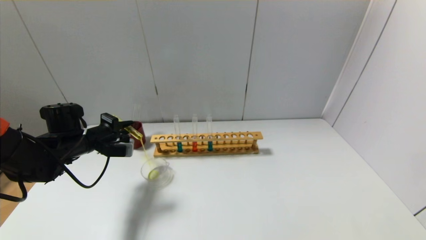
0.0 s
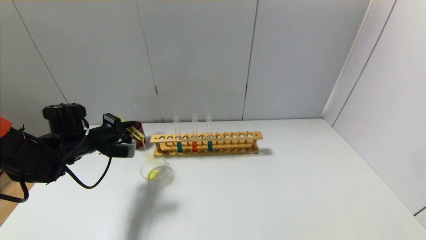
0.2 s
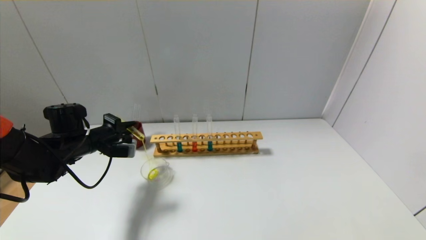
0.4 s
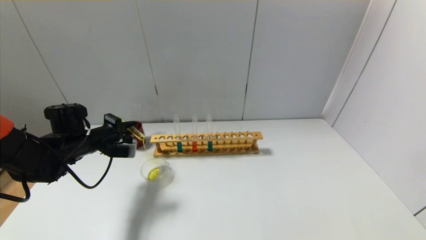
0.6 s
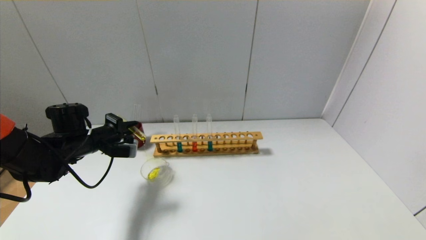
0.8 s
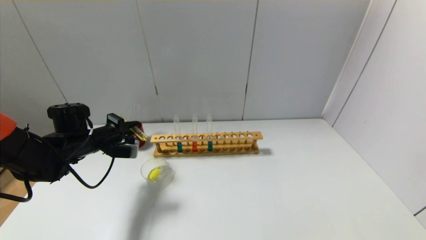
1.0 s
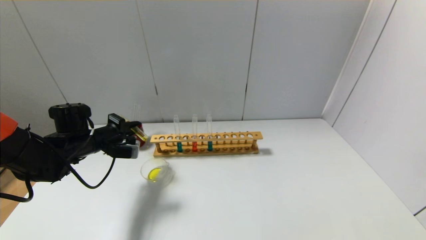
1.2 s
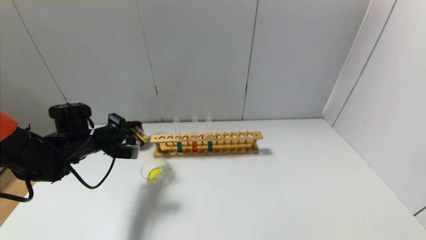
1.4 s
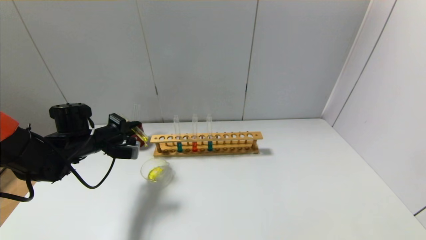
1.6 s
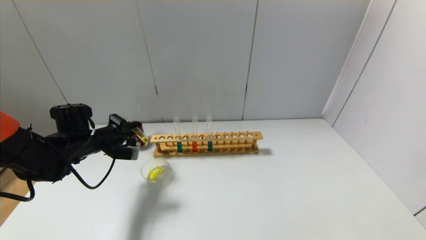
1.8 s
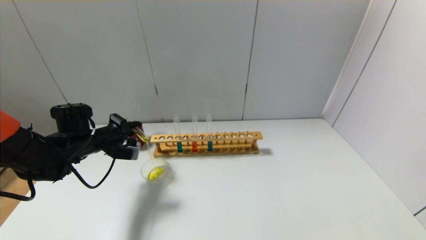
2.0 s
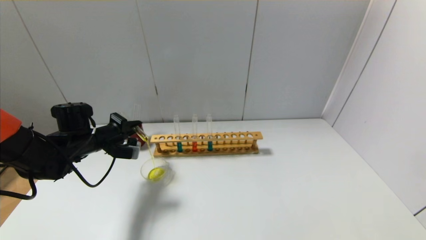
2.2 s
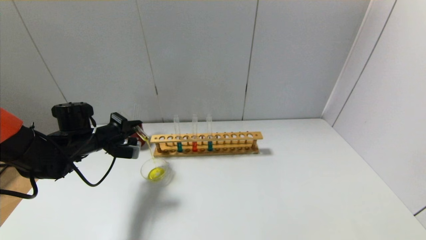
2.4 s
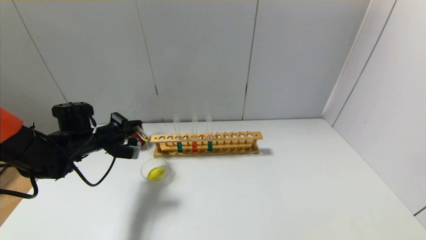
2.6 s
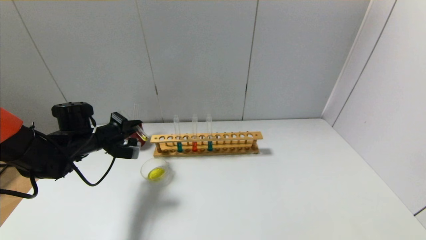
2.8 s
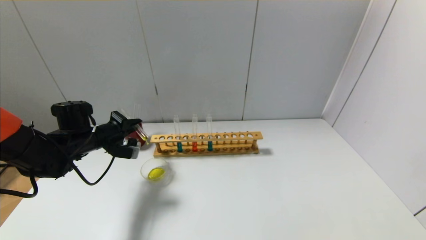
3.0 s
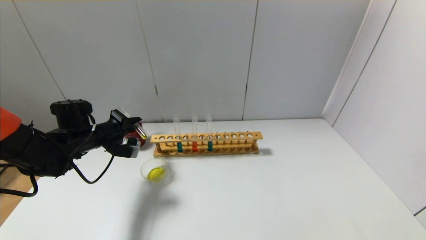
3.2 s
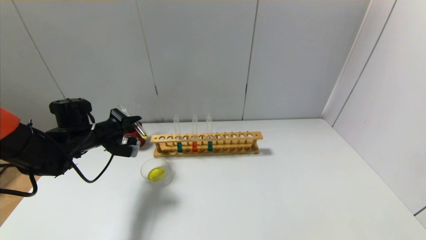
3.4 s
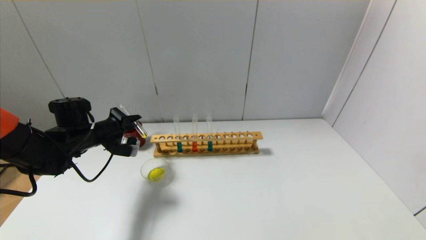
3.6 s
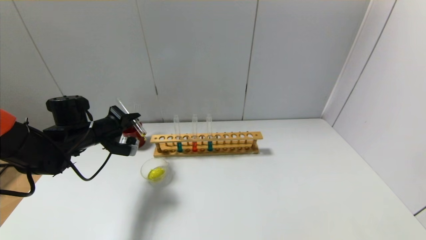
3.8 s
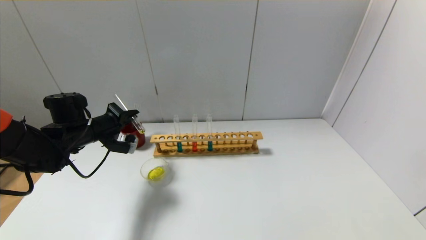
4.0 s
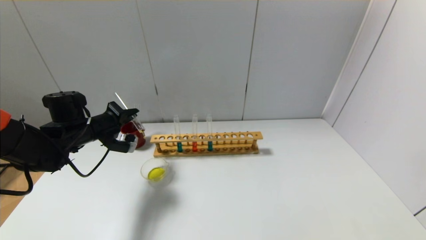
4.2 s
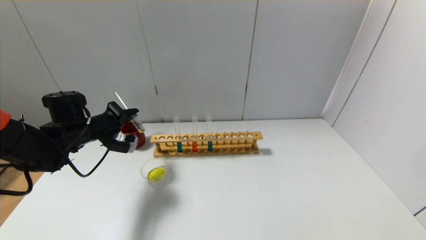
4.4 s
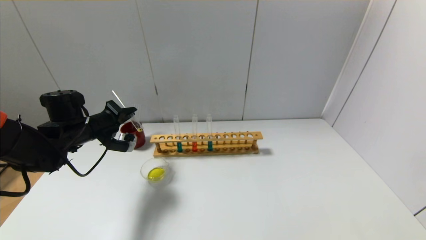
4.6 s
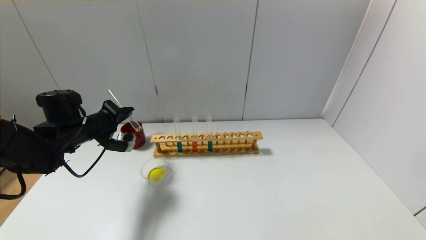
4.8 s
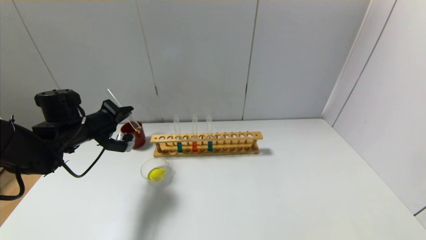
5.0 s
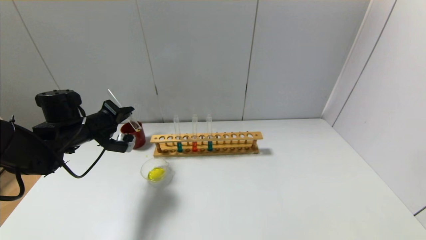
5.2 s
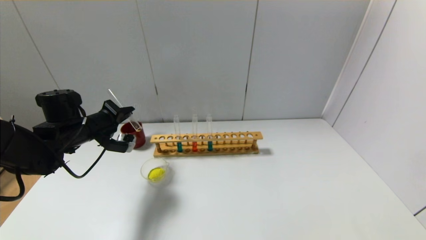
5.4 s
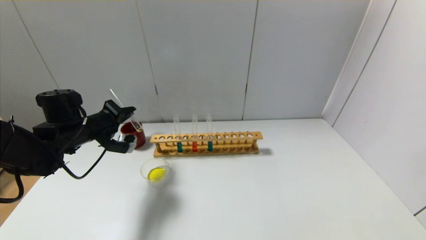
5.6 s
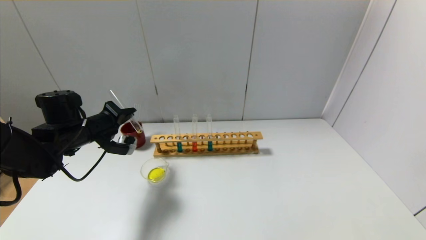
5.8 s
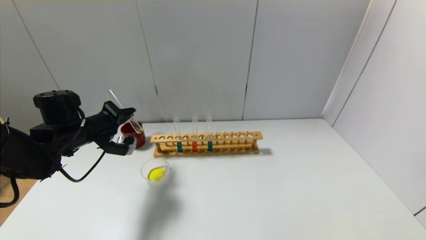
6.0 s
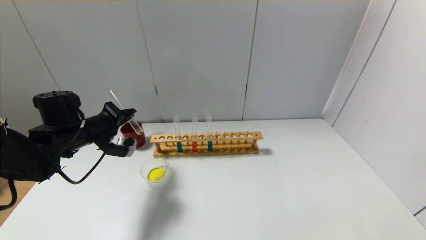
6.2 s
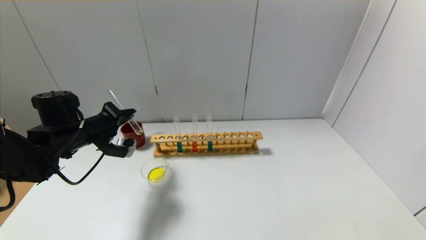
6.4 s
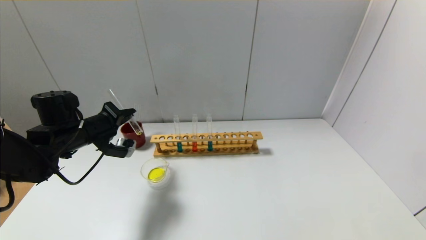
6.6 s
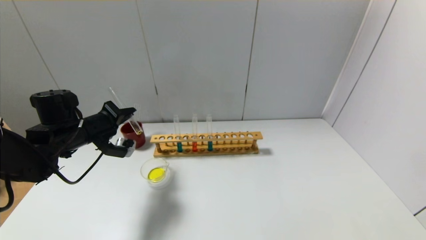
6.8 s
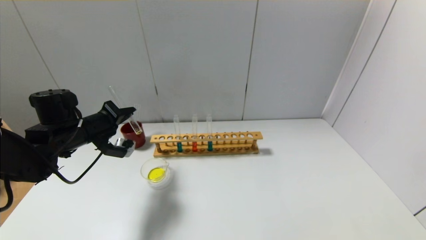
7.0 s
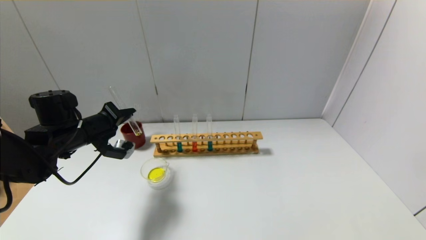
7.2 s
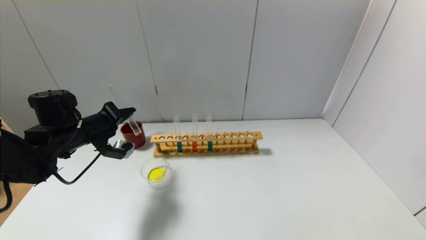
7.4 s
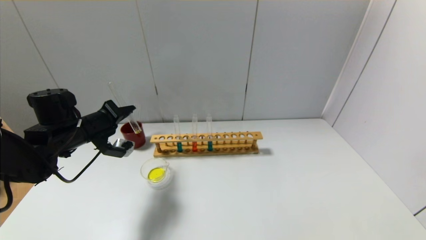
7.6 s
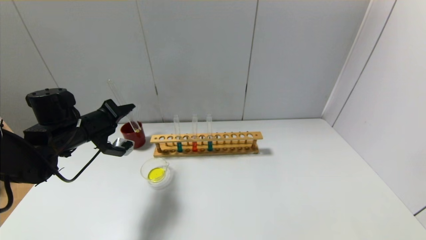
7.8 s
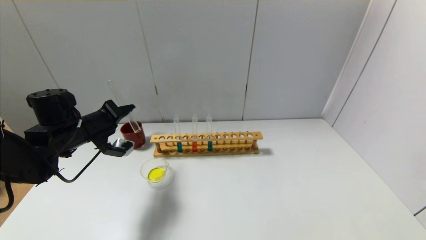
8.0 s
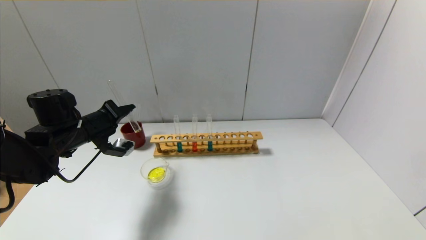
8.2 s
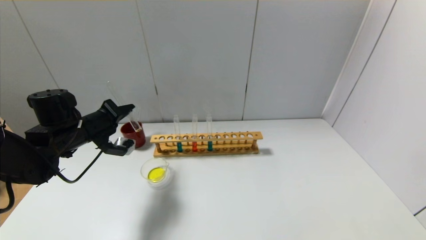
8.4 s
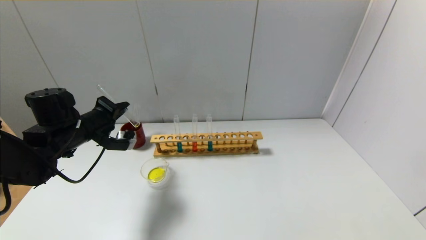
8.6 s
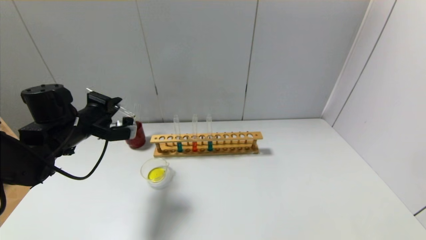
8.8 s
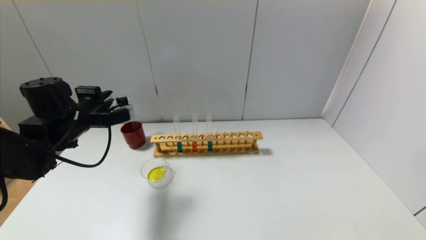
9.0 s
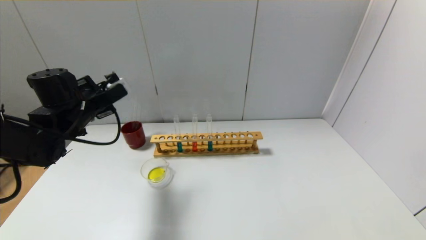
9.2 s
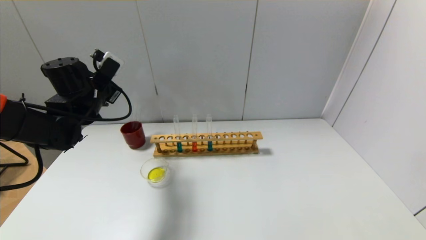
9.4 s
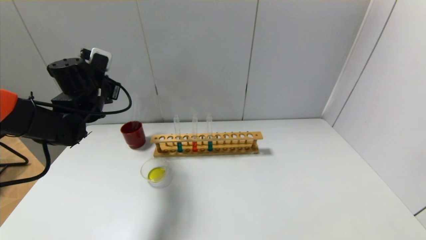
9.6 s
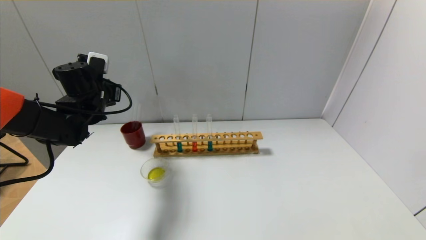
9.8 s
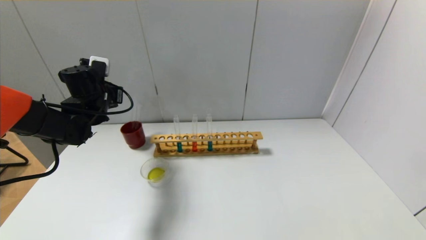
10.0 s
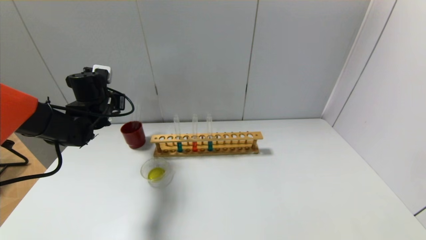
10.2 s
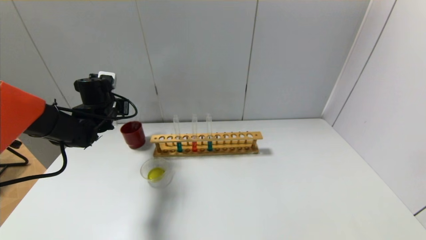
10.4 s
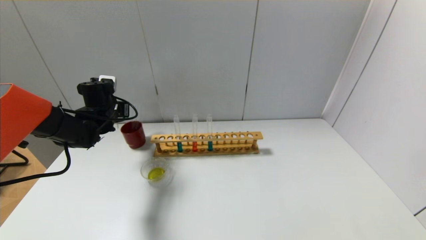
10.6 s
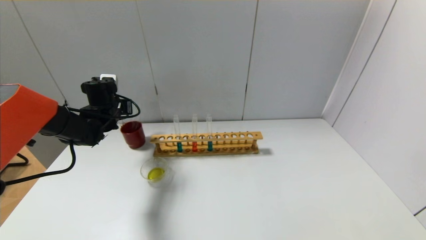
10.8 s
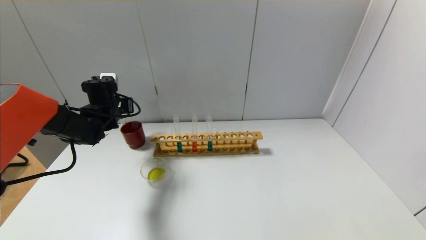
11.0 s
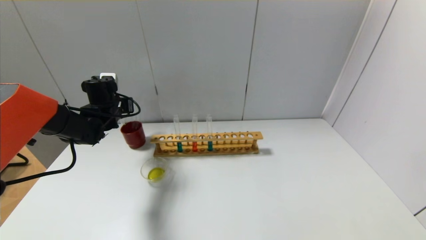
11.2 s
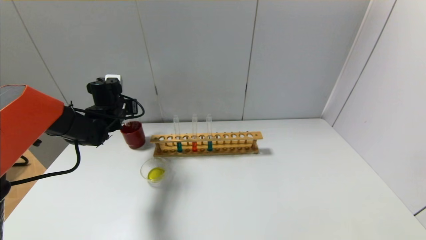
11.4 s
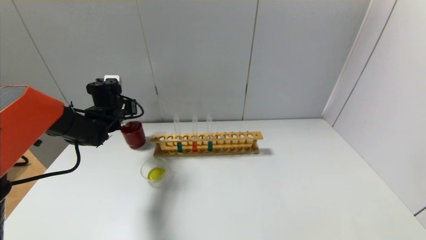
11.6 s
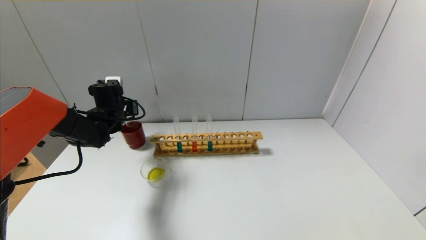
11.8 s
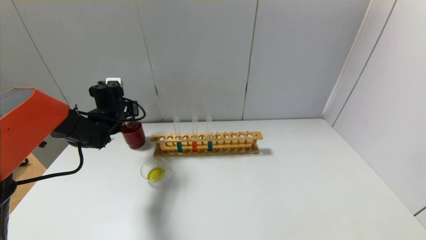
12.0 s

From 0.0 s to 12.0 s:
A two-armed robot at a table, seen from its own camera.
Step, from 0.0 s to 8.0 s: Pour the yellow reagent into the graduated cylinder with the left gripper.
From 0.0 s to 3.0 s: There are only small adjustments of the grippers.
From 3.0 s to 6.0 s: There are only small adjustments of the grippers.
From 6.0 s to 7.6 s: There are only small adjustments of the grippers.
From 9.0 s to 10.4 s: The left gripper is displaced forward by some 10 cm.
From 10.4 s to 12.0 s: The grippers make only small movements.

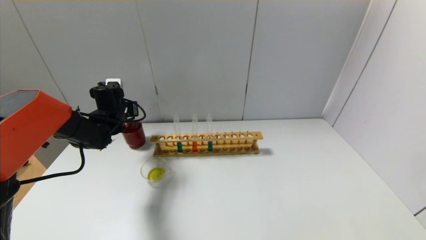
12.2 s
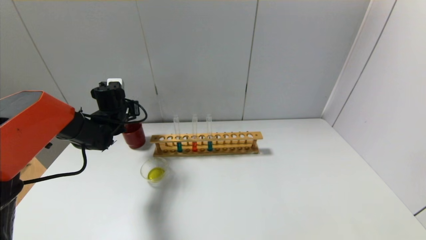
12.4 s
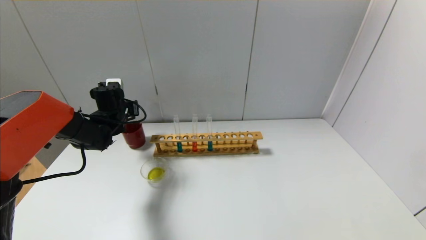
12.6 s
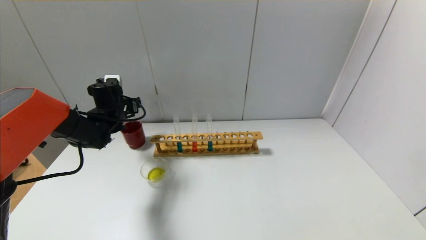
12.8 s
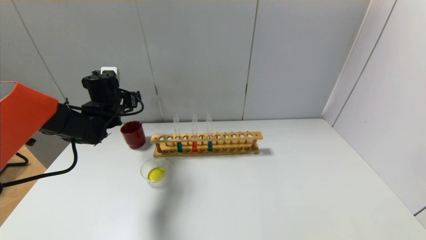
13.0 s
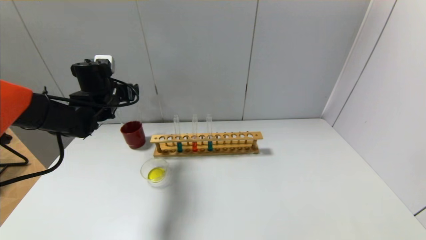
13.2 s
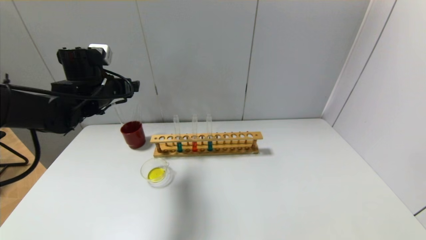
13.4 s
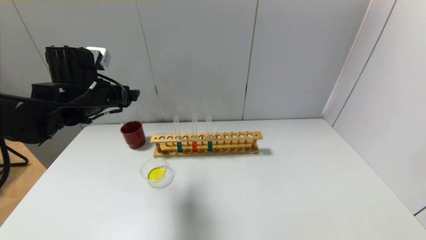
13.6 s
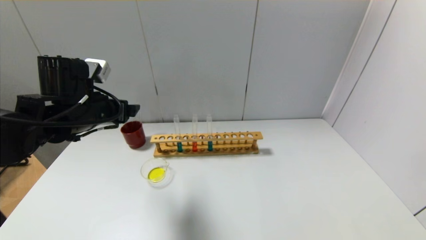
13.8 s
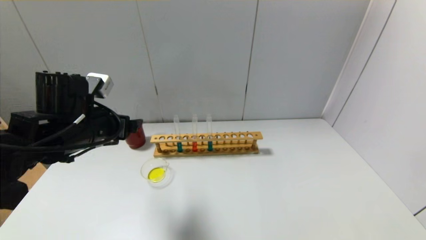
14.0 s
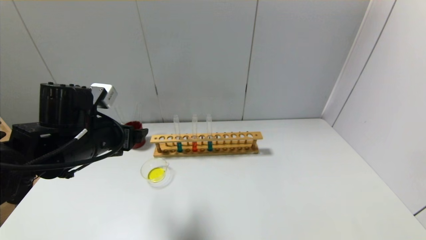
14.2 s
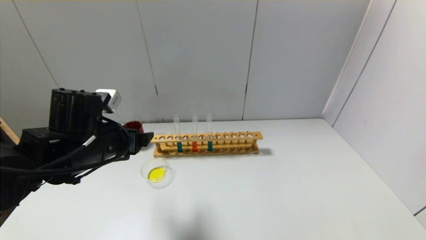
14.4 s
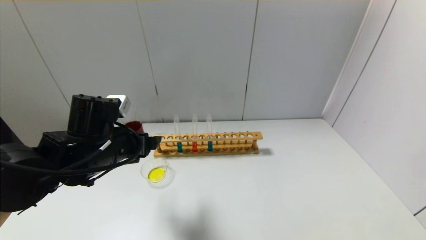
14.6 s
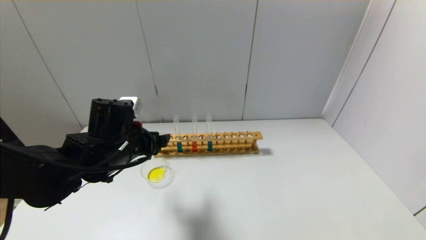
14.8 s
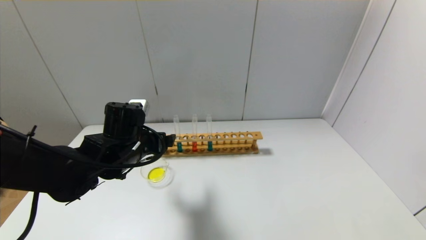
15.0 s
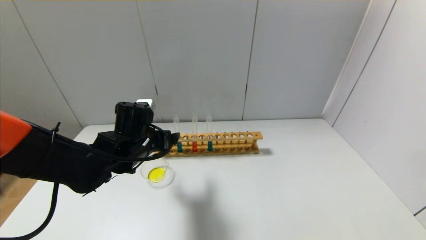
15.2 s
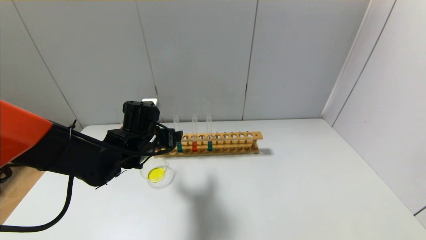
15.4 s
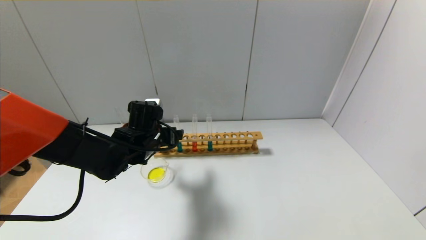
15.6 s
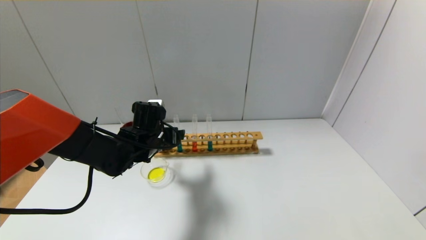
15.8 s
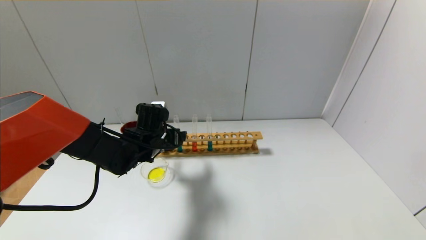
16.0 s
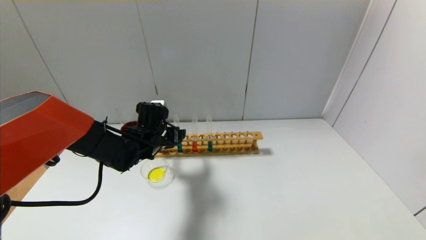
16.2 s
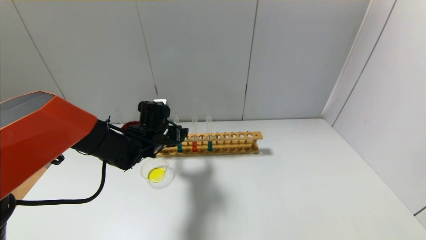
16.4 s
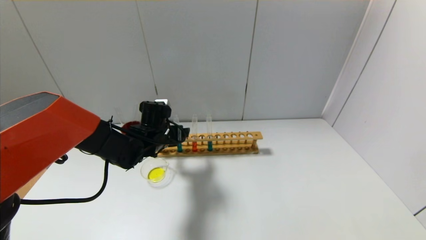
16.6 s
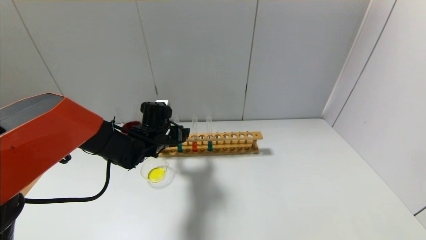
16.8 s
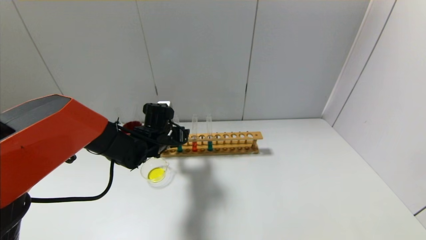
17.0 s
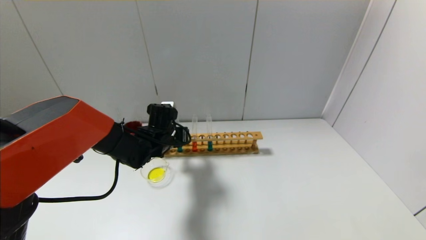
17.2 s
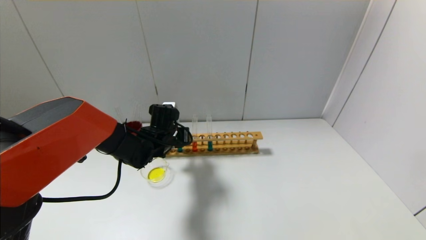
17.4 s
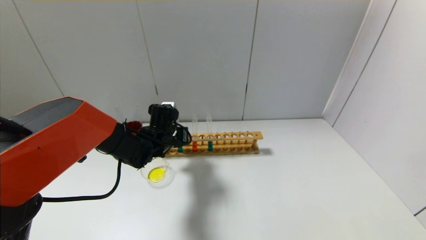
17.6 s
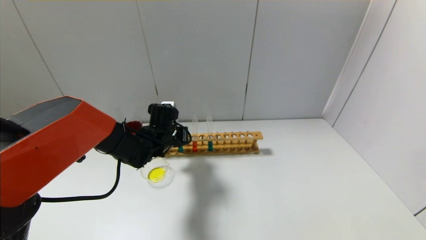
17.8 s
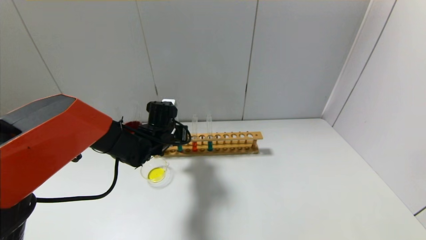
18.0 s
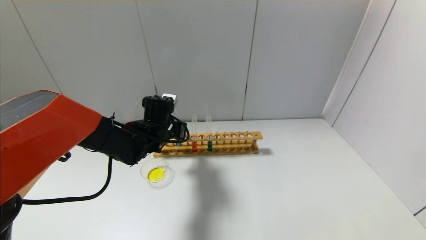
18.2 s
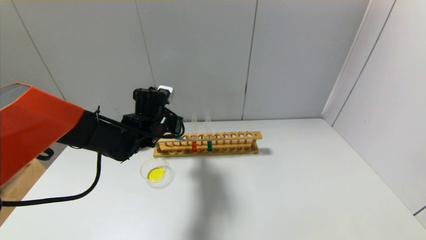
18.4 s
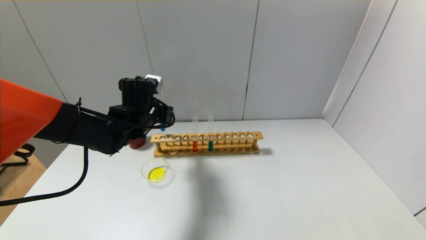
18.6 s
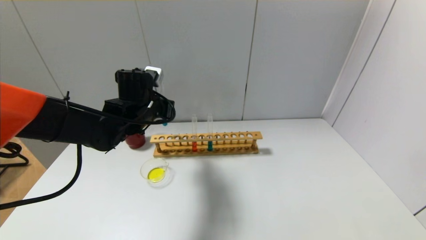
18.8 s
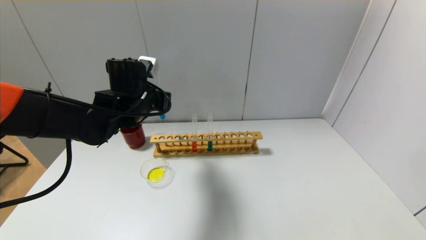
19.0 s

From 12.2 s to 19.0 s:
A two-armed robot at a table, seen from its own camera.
Step, from 12.6 s to 17.6 s: Grasp the blue reagent with the left gripper.
From 12.2 s to 13.6 s: The left gripper is displaced backward and upward by about 15 cm, and opens its fingers.
From 13.6 s to 15.0 s: The left gripper heads downward and to the right, covering some 10 cm.
From 15.0 s to 16.2 s: The left gripper heads forward, covering about 10 cm.
From 16.2 s to 17.6 s: The left gripper closes its fingers.
From 17.6 s to 19.0 s: The left gripper heads upward, covering some 15 cm.
